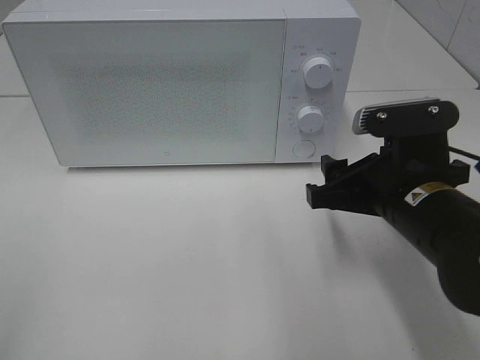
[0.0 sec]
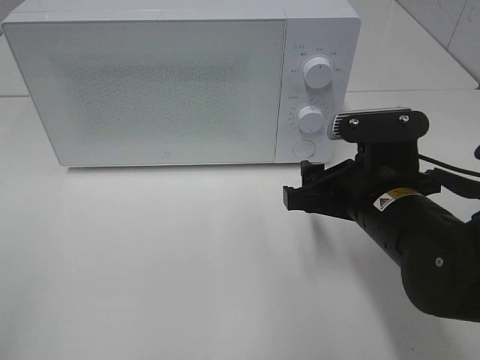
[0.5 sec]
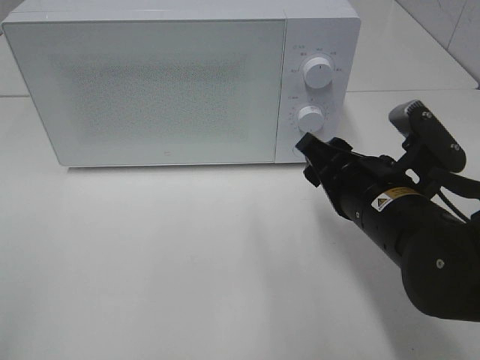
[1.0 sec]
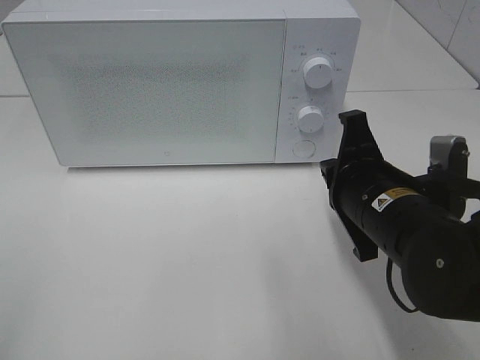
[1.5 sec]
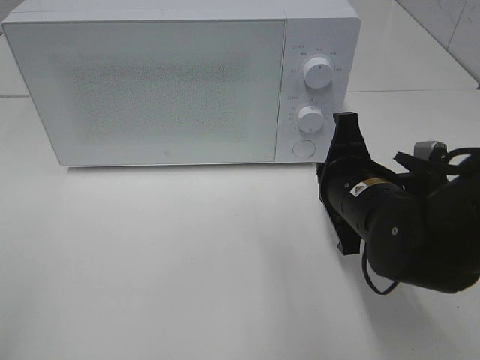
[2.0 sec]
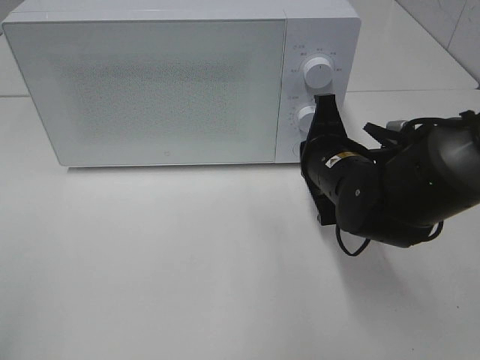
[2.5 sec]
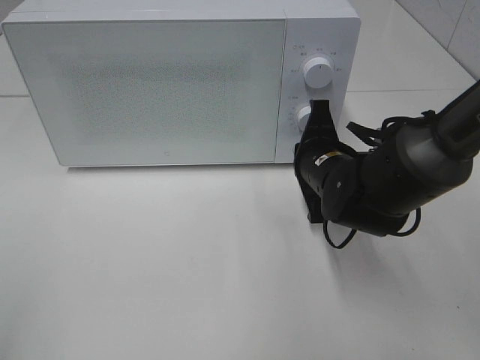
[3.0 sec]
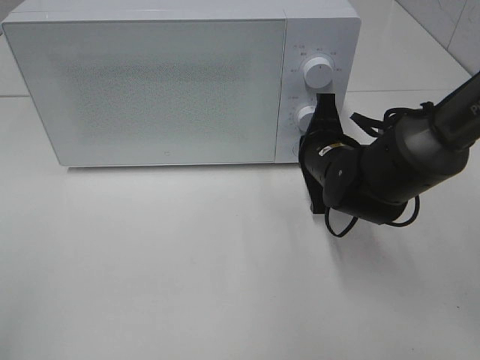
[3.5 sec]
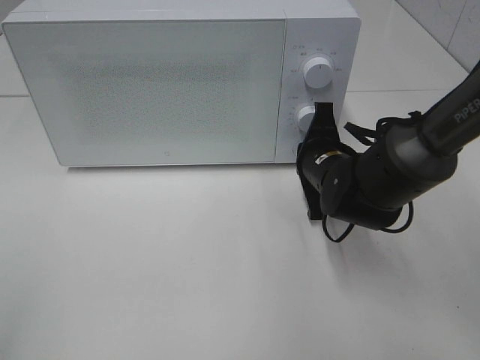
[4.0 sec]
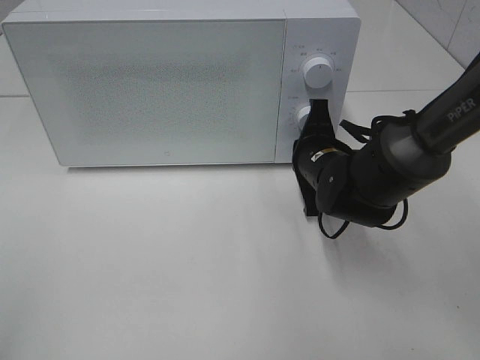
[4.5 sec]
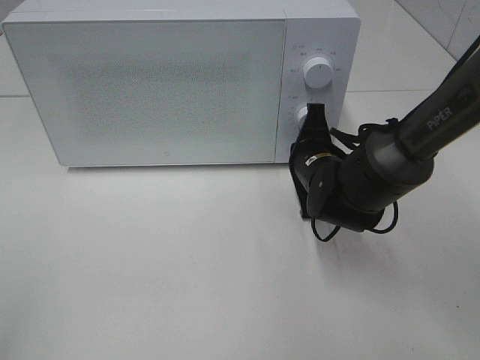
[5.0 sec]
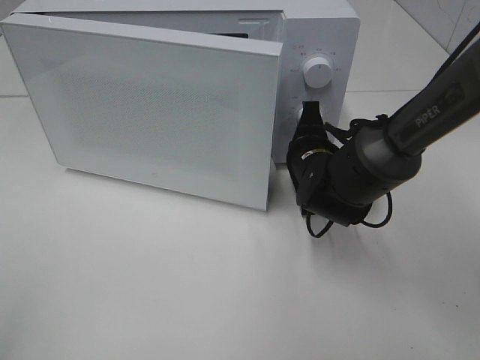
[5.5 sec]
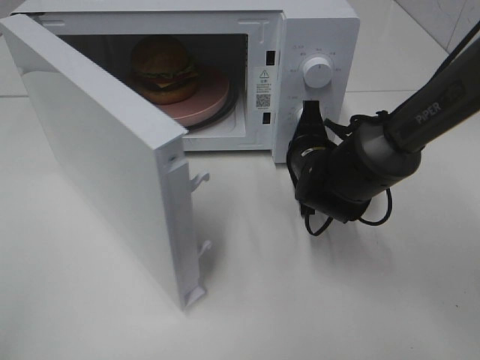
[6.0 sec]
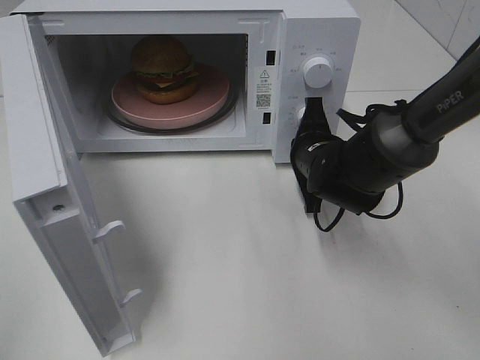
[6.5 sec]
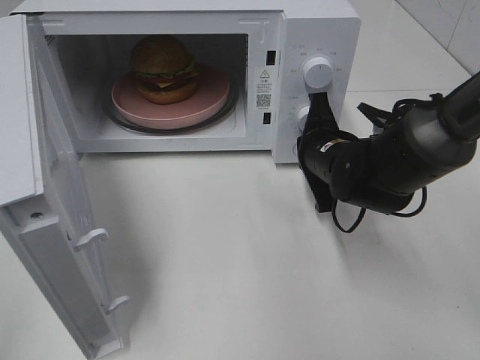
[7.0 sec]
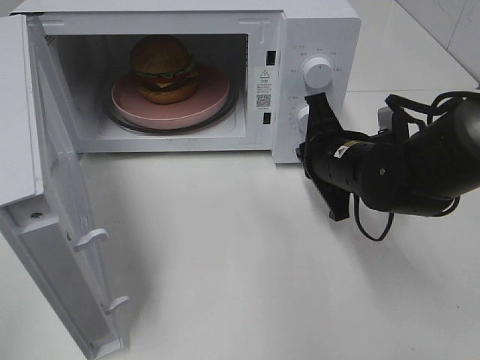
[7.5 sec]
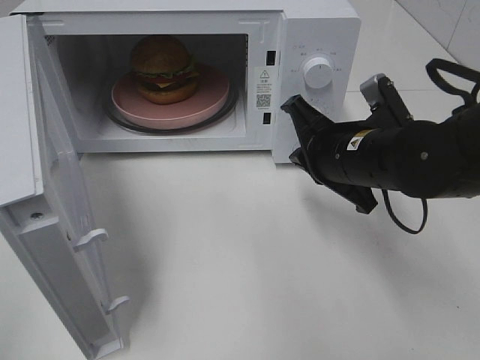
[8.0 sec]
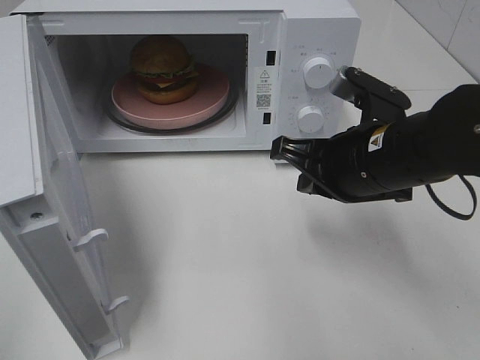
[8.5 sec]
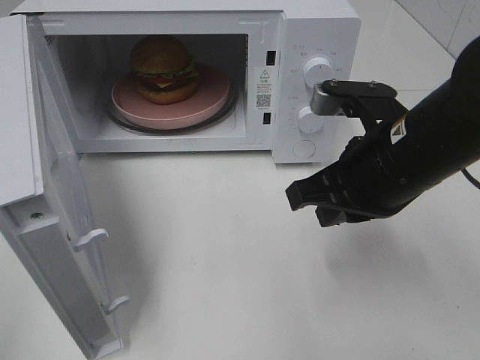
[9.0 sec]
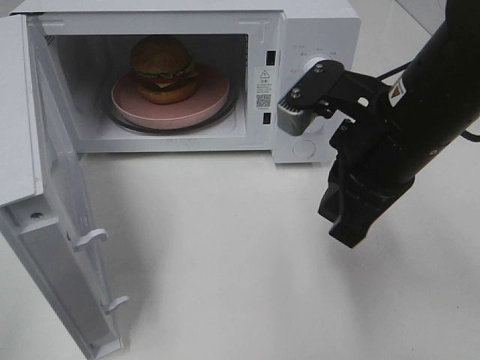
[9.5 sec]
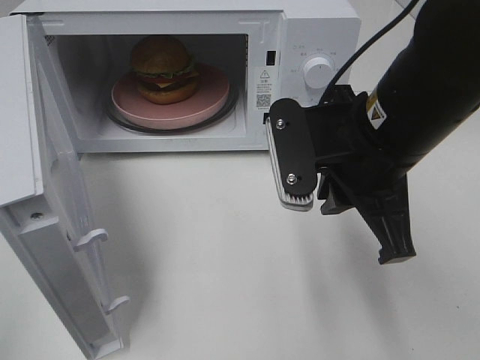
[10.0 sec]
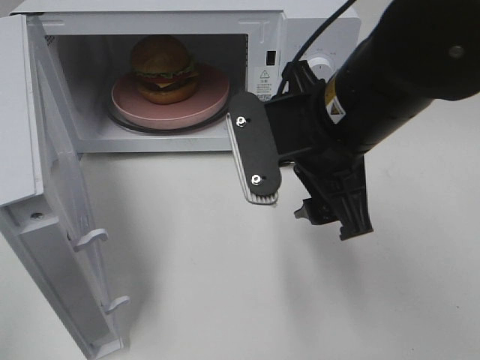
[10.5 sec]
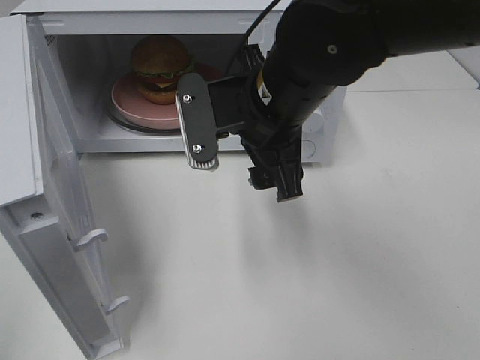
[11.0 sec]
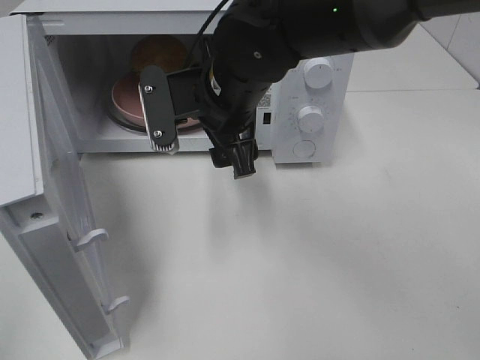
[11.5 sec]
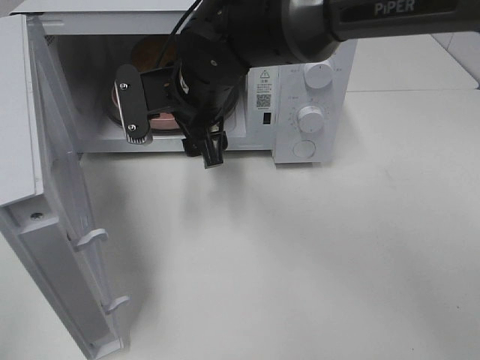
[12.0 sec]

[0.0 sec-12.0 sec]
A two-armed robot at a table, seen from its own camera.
Task of the whole recording: Heat the burger.
Step, 0.0 sec to 7.0 sec: Right hand: press the switch.
0.0 sec to 2.0 sec: The right gripper shifts by about 5 cm, and closes up.
2.0 sec to 4.0 sec: The right gripper travels forward by some 10 cm.
6.0 sec to 8.0 sec: The right gripper travels backward and upward by approximately 10 cm.
8.0 sec to 10.0 sec: The right gripper moves upward and backward, roughly 10 cm.
10.0 sec to 12.0 sec: The right gripper heads to the left and forward, covering about 20 cm, and opens.

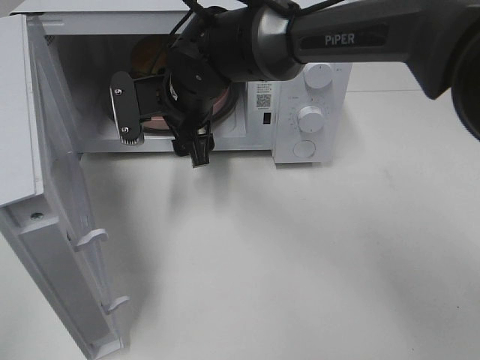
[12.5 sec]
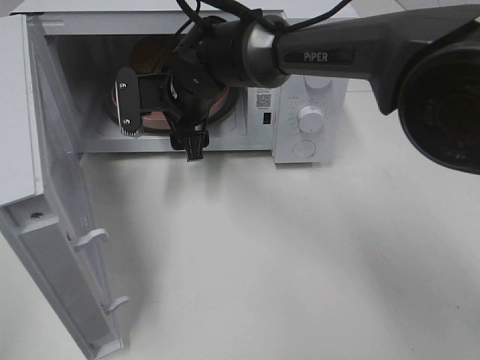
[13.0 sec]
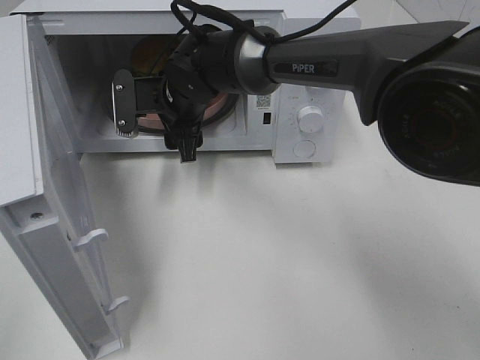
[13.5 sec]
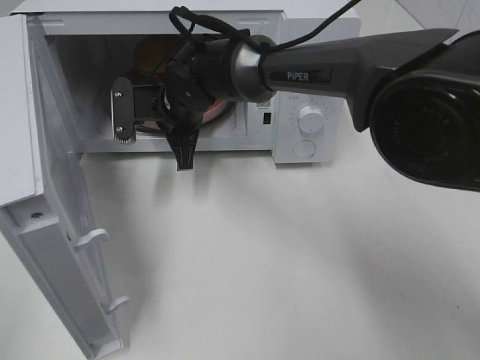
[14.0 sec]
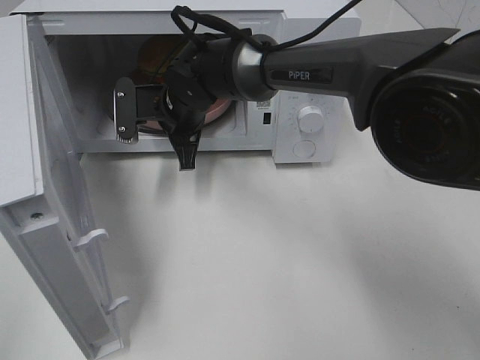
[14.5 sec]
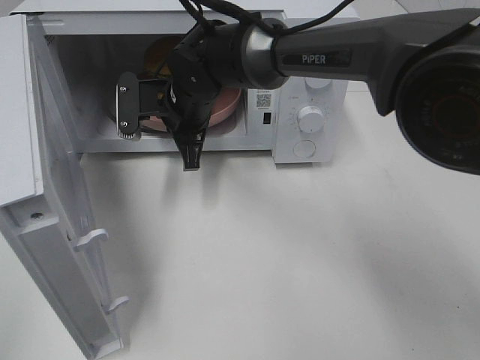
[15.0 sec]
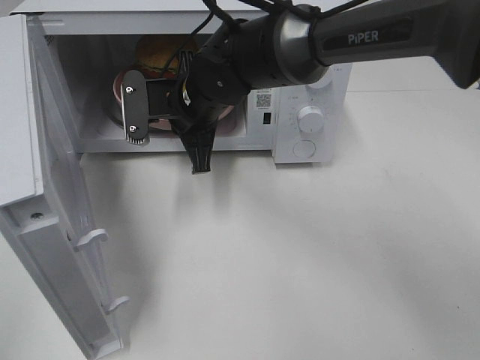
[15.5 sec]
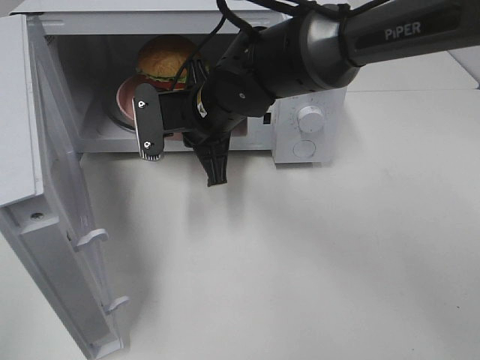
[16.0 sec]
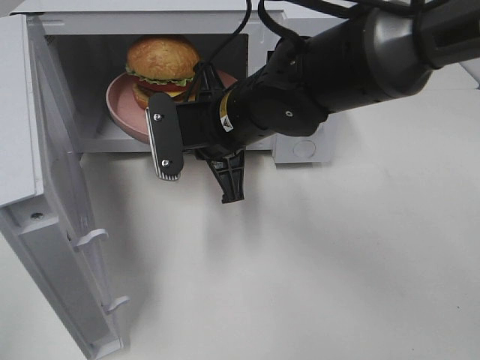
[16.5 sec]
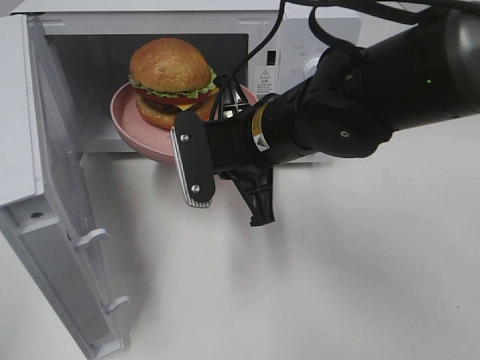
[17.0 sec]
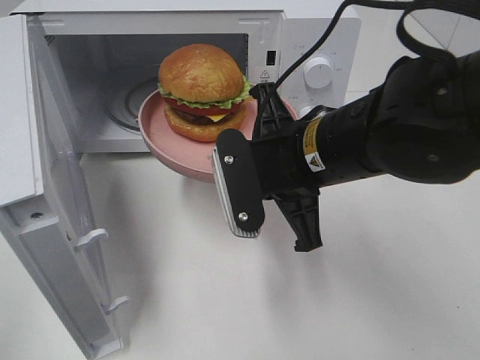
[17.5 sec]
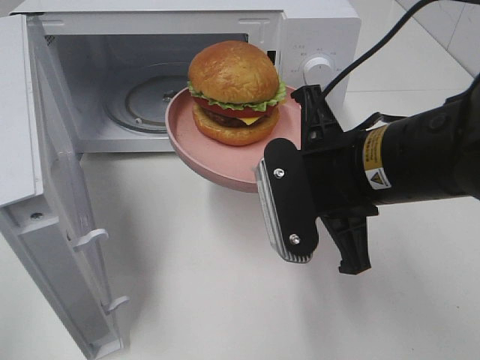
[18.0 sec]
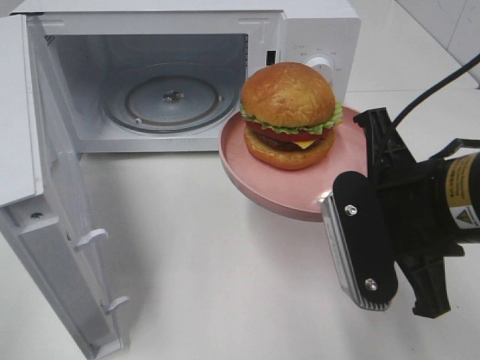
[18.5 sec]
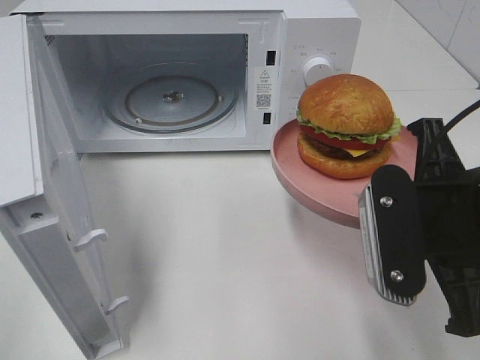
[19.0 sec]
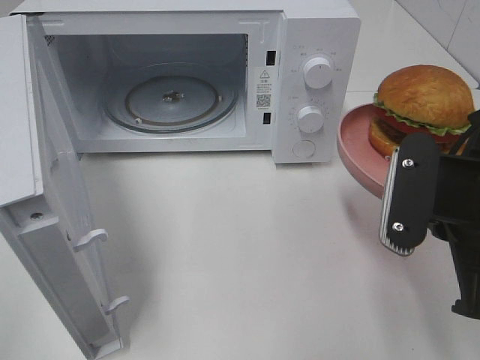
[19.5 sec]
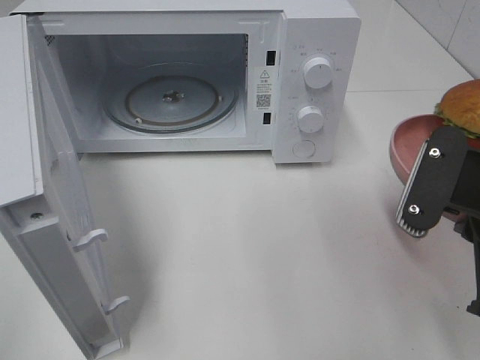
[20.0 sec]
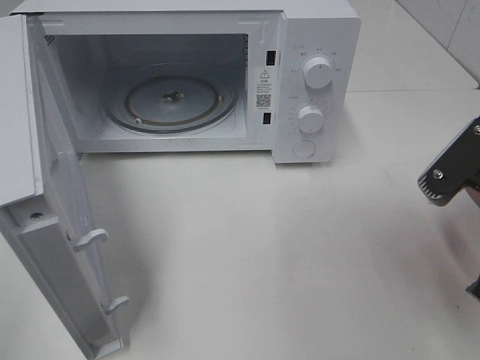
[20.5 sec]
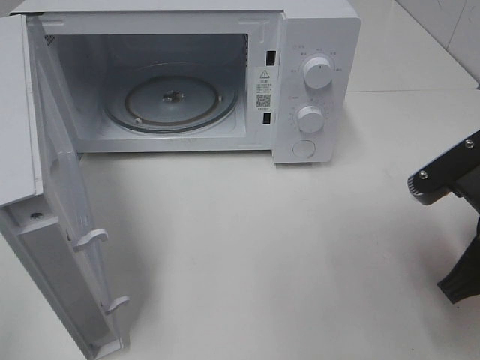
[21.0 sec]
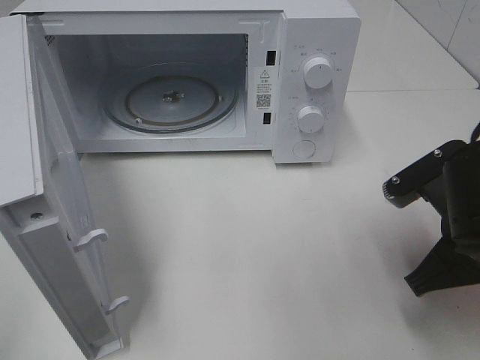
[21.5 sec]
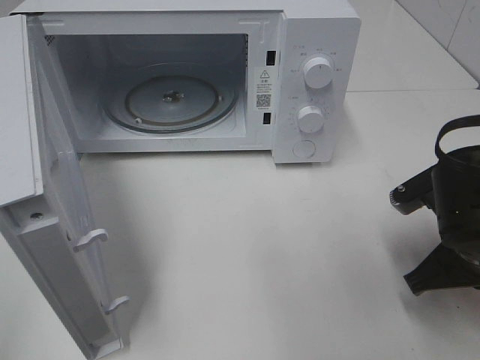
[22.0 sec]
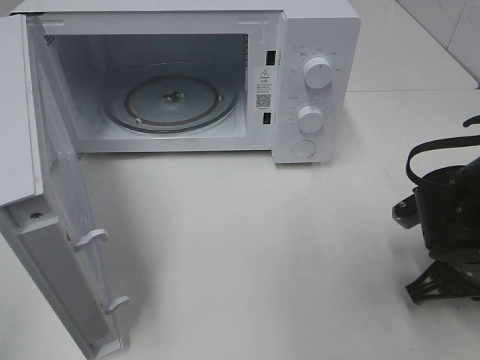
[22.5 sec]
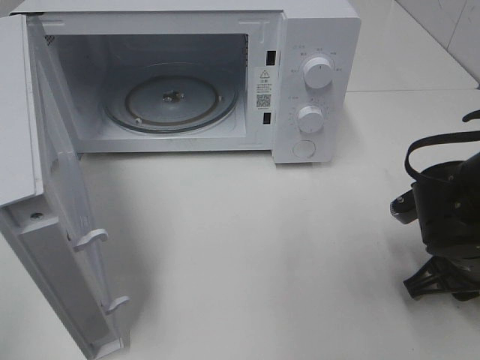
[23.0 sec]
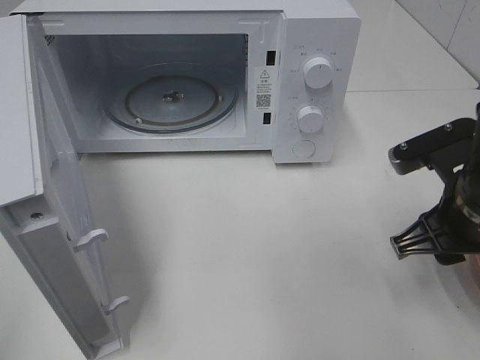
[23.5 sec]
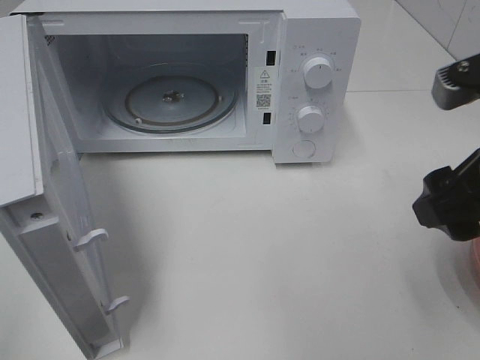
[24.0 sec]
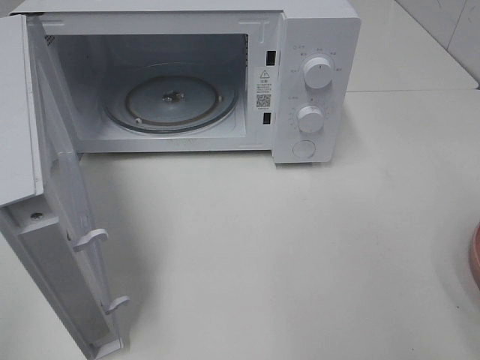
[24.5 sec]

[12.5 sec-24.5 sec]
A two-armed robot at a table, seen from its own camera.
Task of the whole recording: Heat the burger.
Step, 14.5 sec to 23.0 sec: Right hand: place the plate on the table.
12.5 sec to 14.5 sec: The right gripper moves approximately 5 cm, and closes its fingers.
14.5 sec to 16.5 sec: The right gripper shifts some 10 cm backward and to the right.
16.5 sec to 18.5 sec: The right gripper shifts approximately 20 cm backward and to the right.
18.5 sec to 20.5 sec: The right gripper shifts roughly 5 cm to the right.
20.5 sec to 22.5 sec: The right gripper travels downward and forward by approximately 15 cm.
22.5 sec to 24.5 sec: The right gripper heads upward and backward, covering some 25 cm, and opens.

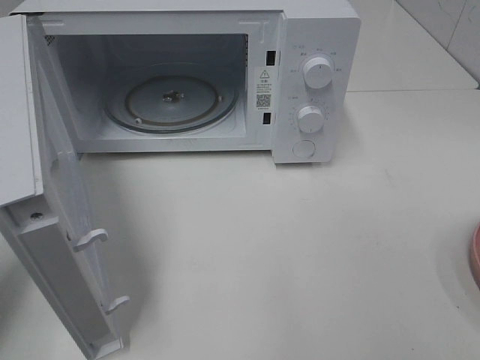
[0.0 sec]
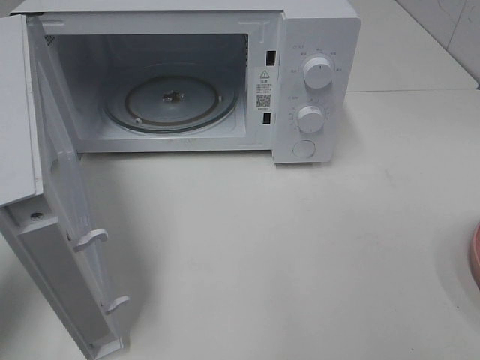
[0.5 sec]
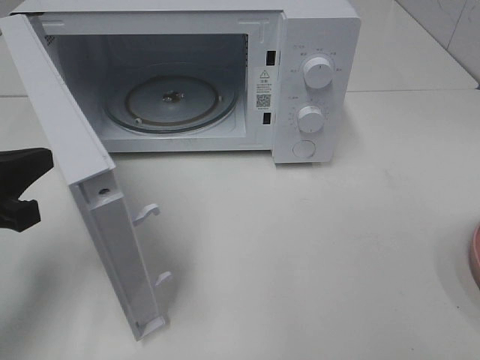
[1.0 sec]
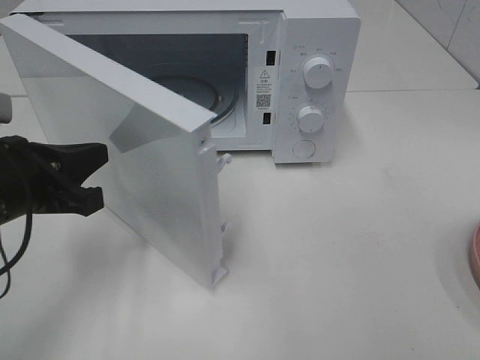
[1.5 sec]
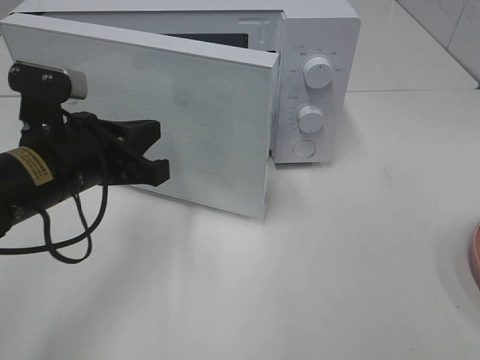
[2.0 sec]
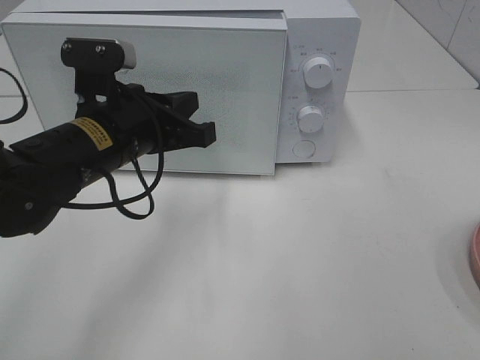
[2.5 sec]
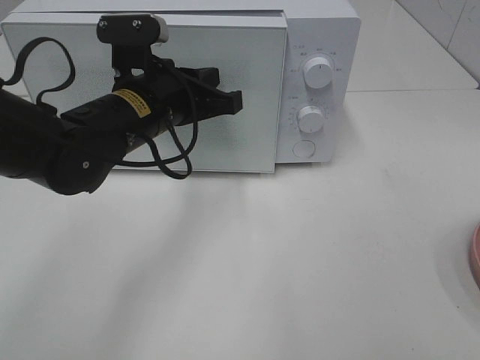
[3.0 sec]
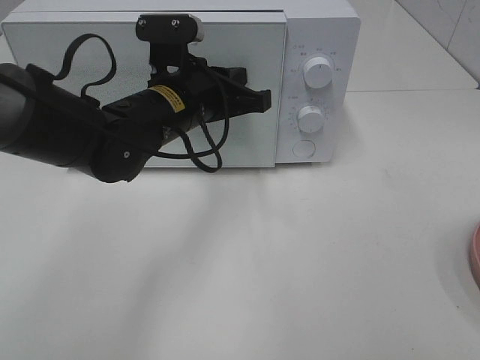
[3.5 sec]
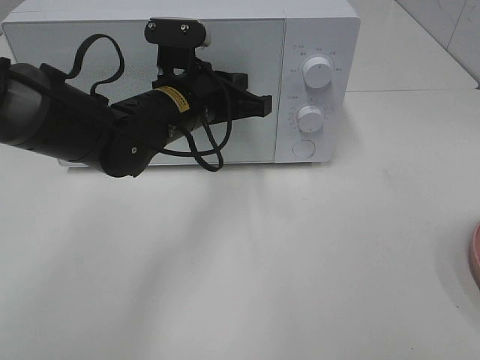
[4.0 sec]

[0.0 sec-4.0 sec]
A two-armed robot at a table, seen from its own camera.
Task of the whole recording: Heat the burger.
0.0 sec to 2.0 sec: The left gripper moves to the right and forward, roughly 15 cm.
2.0 sec to 4.0 sec: The left gripper heads forward and to the right, covering about 15 cm.
